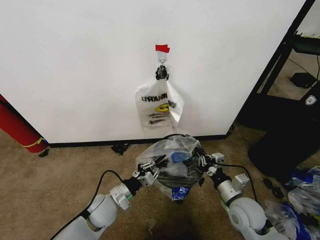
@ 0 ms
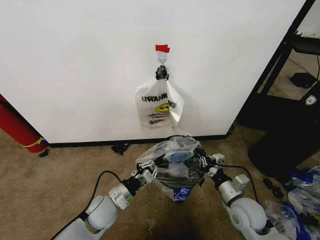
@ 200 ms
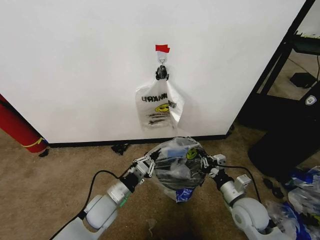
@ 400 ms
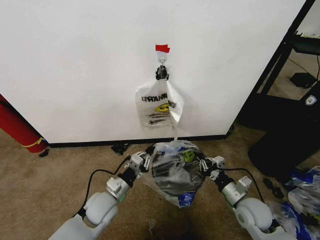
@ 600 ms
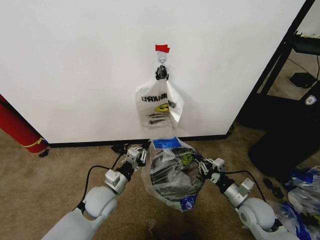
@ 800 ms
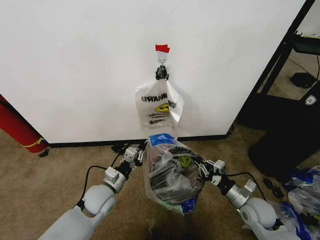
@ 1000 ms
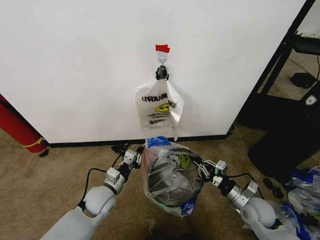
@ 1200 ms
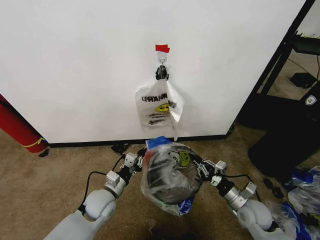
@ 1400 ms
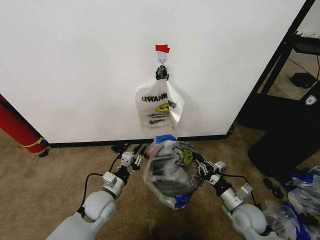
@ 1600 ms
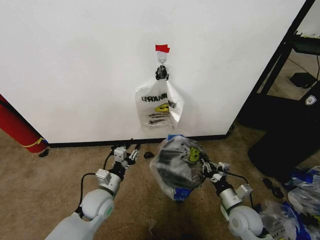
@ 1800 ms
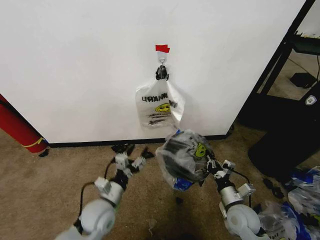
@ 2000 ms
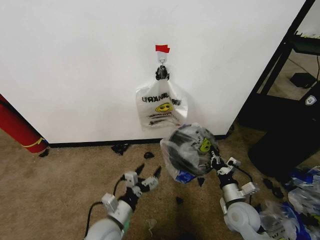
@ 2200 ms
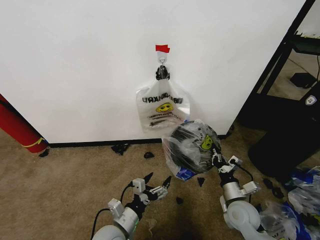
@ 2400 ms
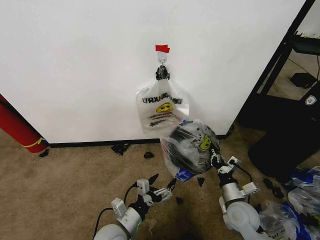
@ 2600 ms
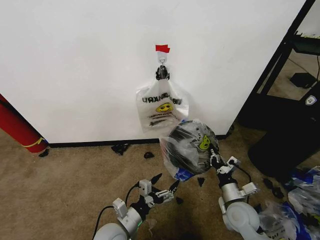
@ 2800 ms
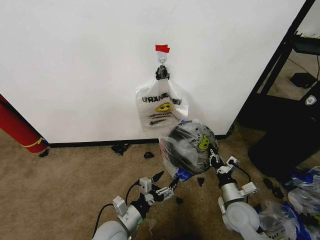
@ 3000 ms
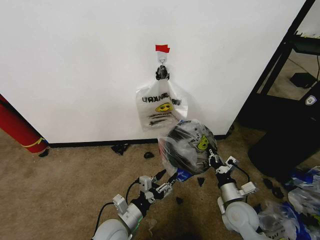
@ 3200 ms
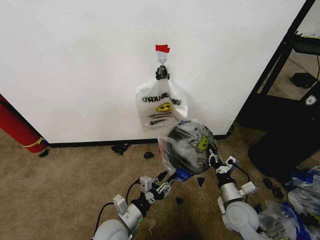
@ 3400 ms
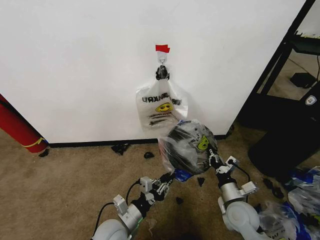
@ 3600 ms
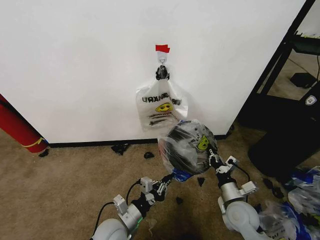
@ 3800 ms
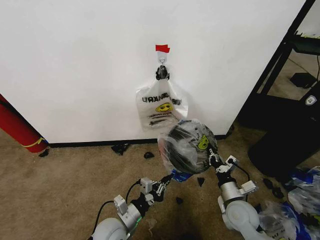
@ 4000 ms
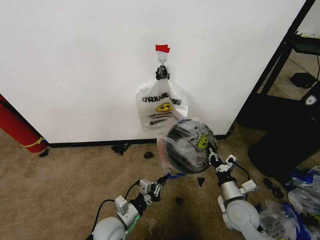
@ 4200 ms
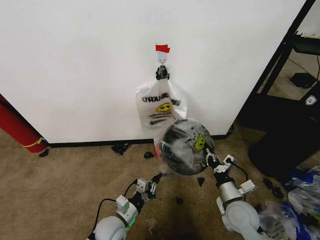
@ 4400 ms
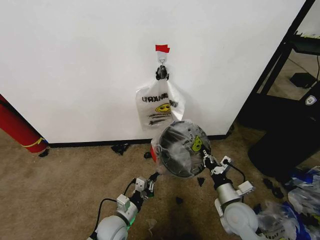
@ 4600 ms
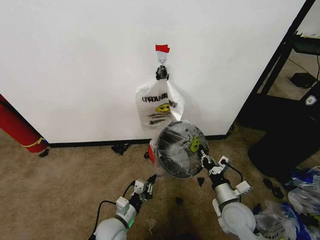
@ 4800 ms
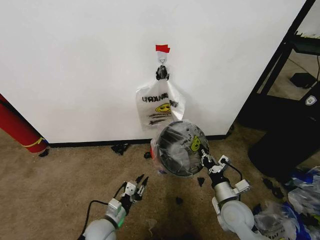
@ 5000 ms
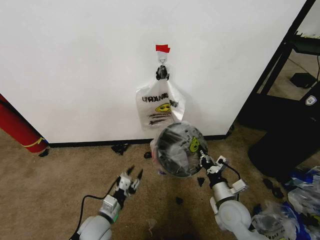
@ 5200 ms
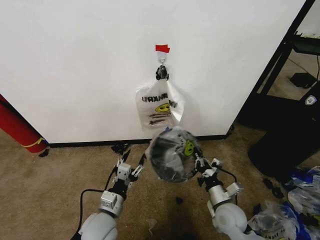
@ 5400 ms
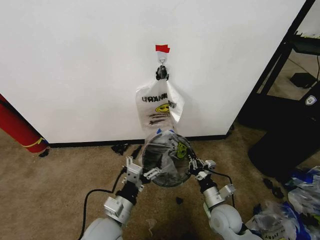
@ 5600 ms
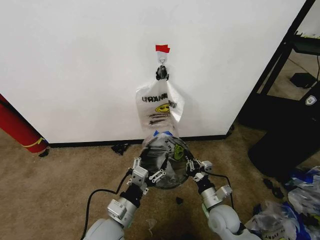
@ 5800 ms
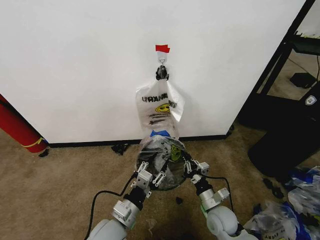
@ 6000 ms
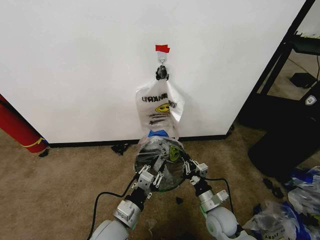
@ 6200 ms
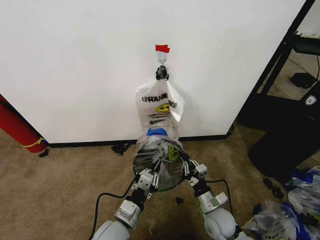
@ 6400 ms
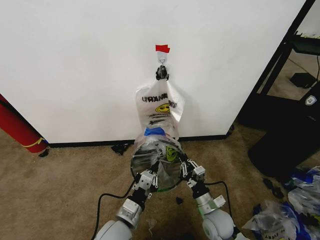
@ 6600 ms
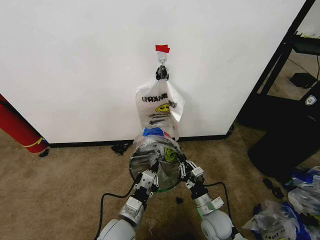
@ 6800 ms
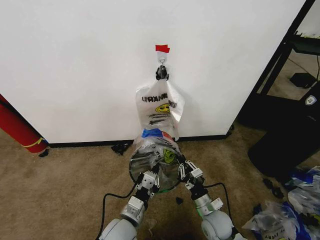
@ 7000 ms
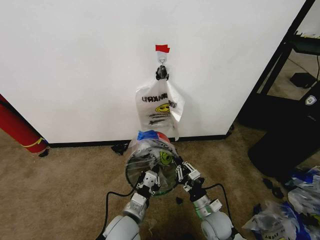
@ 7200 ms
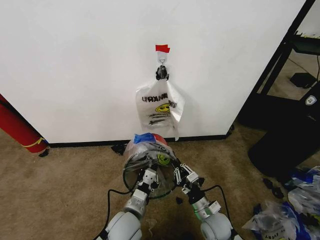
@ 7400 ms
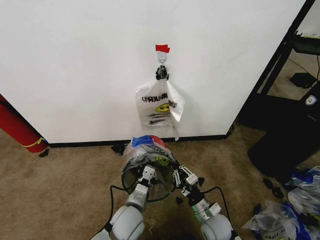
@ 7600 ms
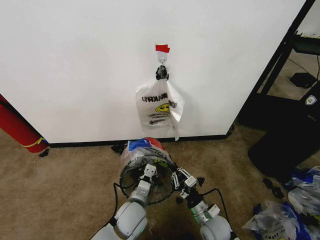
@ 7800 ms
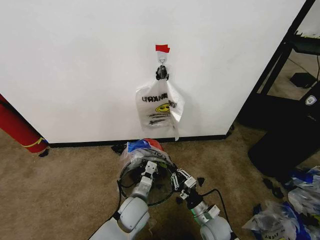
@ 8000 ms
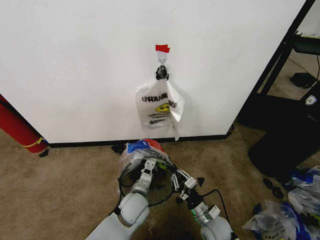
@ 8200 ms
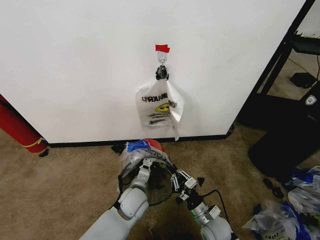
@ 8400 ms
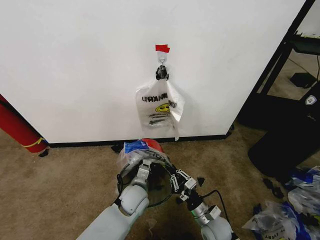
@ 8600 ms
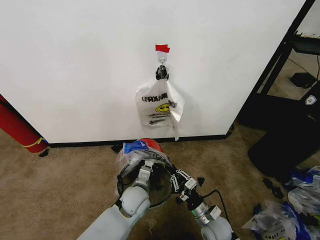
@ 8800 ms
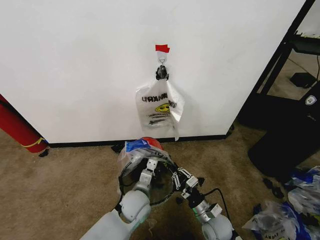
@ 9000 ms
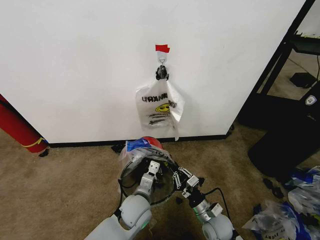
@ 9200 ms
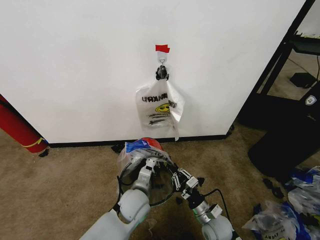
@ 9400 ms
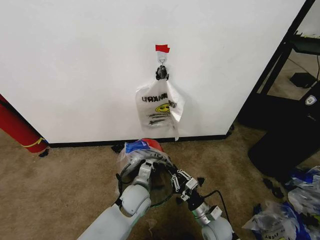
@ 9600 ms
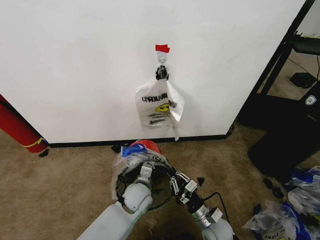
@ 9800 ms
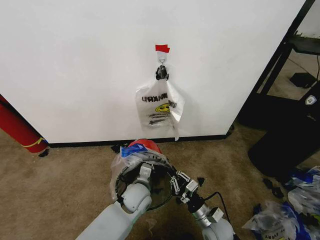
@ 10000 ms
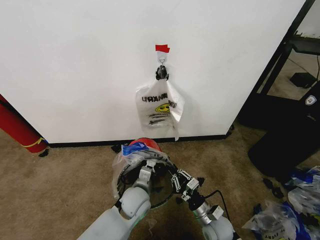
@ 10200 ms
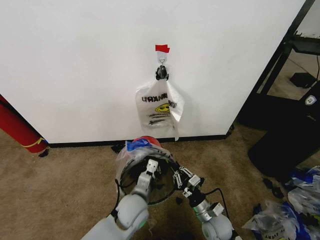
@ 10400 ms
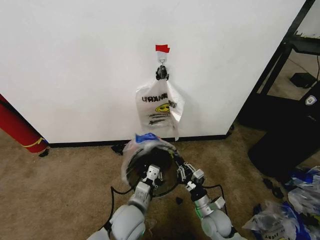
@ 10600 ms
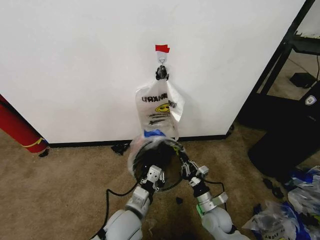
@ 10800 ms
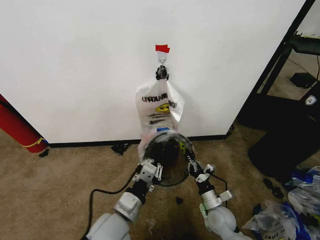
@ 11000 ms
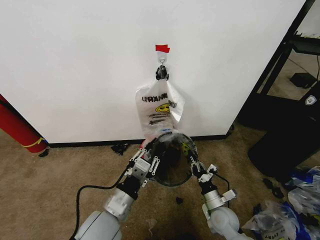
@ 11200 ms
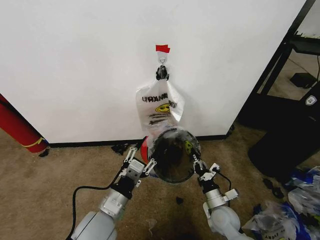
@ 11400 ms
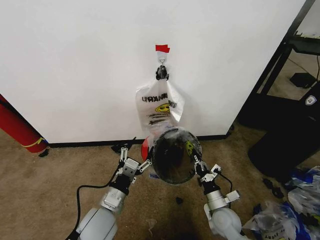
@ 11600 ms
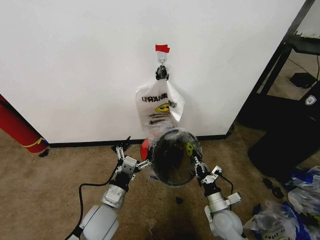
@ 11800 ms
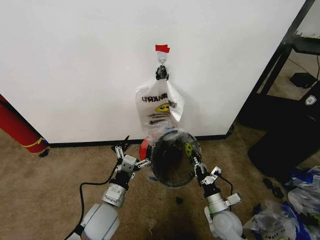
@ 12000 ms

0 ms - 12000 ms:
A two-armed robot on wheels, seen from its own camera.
Task of the whole recording: Pick up the garbage bag from the wall and place it over the trash bin.
0 ms - 1600 ms: The right gripper is displaced downward by about 5 cm.
1600 ms - 3000 ms: The left gripper heads backward and to the right, covering about 10 cm, and opens.
3000 ms - 4400 ms: The left gripper goes roughly 5 cm downward, and closes its fingers.
4400 ms - 6000 ms: The left gripper heads upward, covering about 10 cm, and opens up. Meanwhile the right gripper travels downward by roughly 5 cm.
6000 ms - 7600 ms: The left gripper changes place by roughly 5 cm, and closes.
7600 ms - 9000 ms: The left gripper goes about 5 cm forward.
9000 ms - 10400 ms: The grippers stay close to where they were, moving slightly.
10400 ms - 12000 ms: The left gripper heads to the left, covering approximately 10 cm, reaches roughly 10 cm upward, then returns, and opens its fingers.

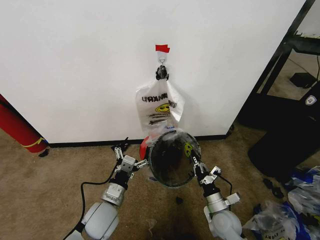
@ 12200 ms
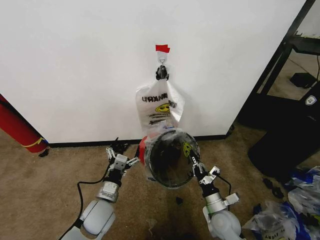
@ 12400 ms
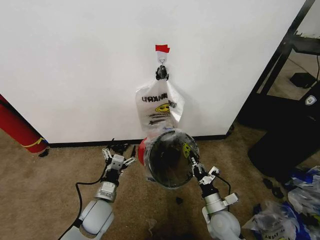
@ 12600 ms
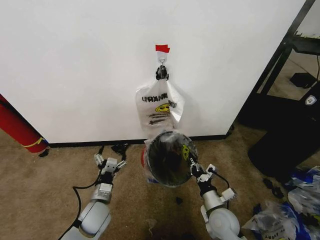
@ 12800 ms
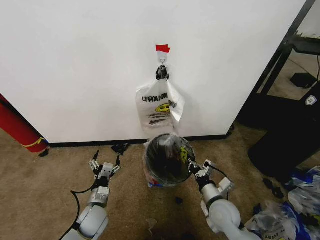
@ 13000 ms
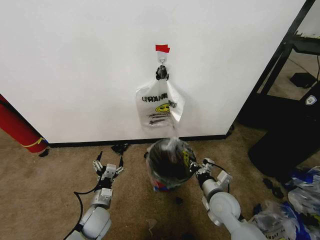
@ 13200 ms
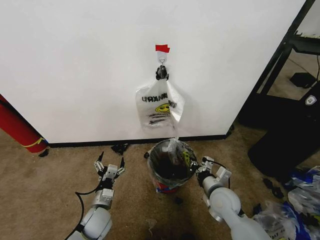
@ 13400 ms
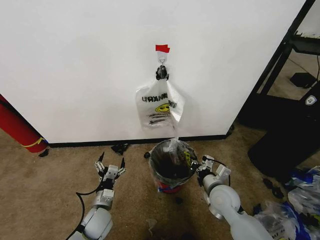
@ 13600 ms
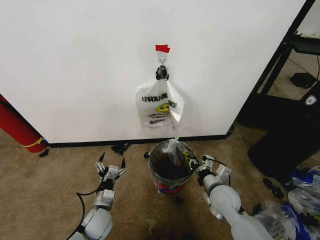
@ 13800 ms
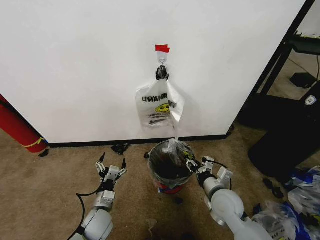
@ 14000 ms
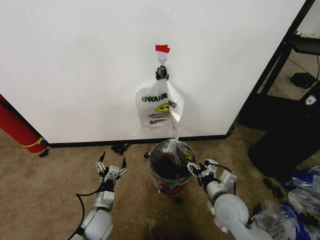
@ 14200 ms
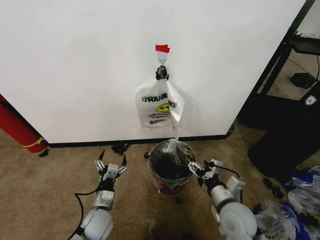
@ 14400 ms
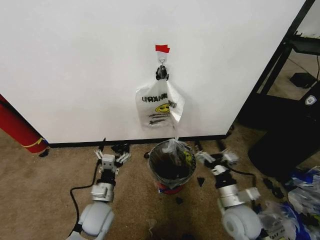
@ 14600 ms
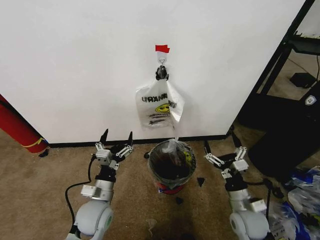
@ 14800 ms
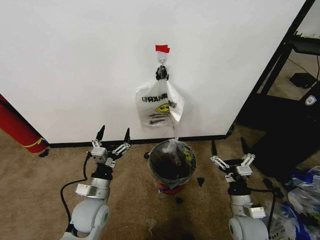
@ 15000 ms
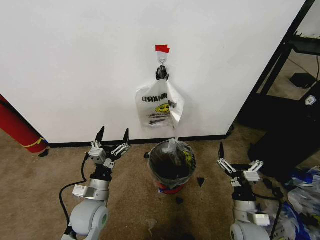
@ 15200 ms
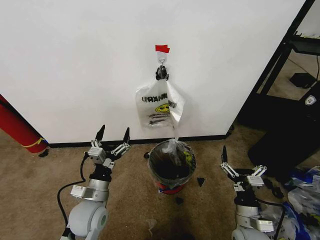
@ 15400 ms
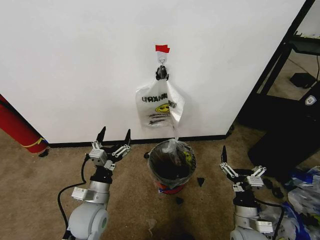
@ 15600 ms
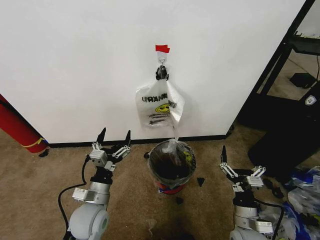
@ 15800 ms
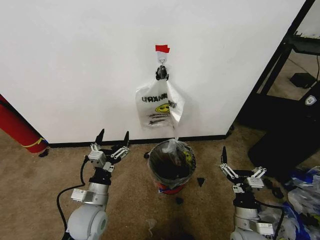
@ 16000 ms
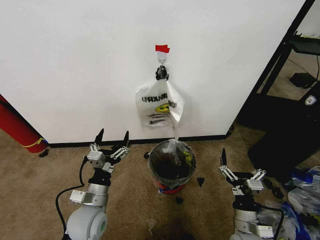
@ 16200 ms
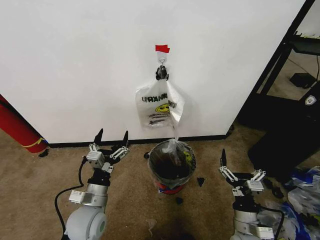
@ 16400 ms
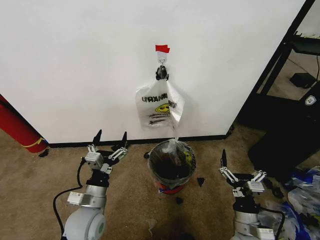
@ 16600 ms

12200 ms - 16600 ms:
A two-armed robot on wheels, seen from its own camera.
Task of the whole recording: Pick up the garbage bag from the wall and place it over the trash bin.
12200 ms - 13600 ms: The left gripper travels downward by some 10 cm. Meanwhile the right gripper moves upward and forward, some 10 cm.
13600 ms - 15200 ms: The right gripper travels backward and to the right by approximately 10 cm, and opens up; the left gripper moves upward, roughly 10 cm.
15200 ms - 16600 ms: There are only small adjustments of the grippers.
